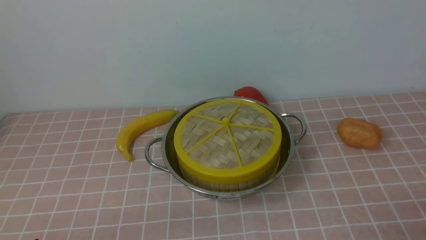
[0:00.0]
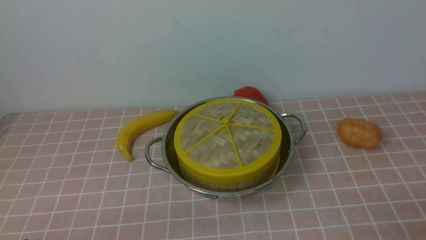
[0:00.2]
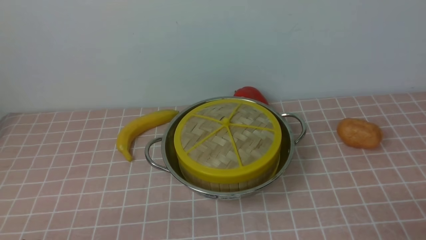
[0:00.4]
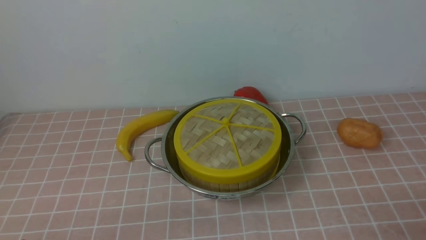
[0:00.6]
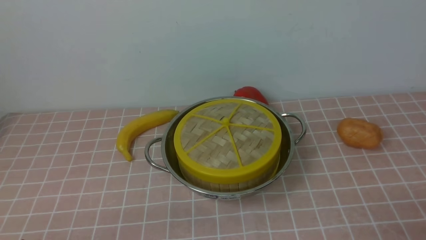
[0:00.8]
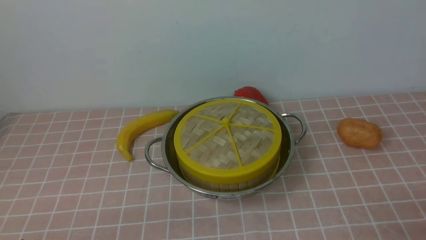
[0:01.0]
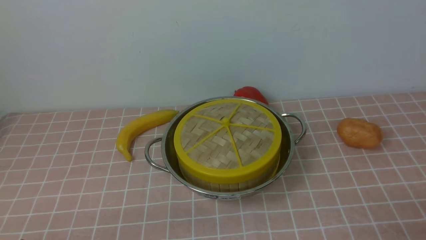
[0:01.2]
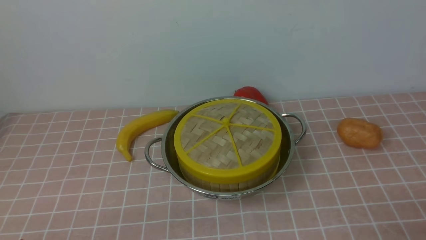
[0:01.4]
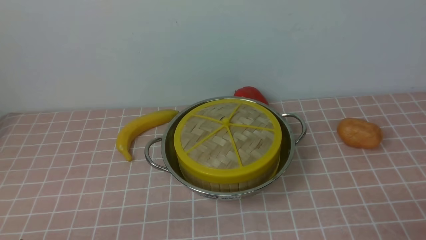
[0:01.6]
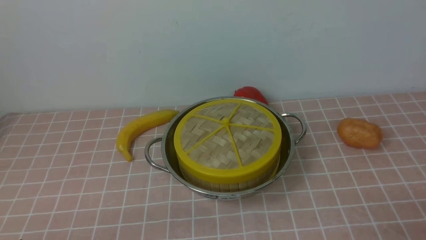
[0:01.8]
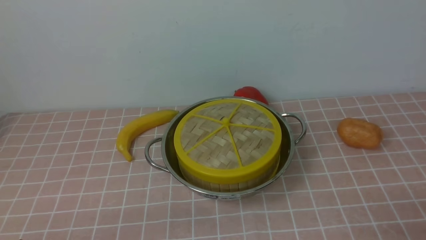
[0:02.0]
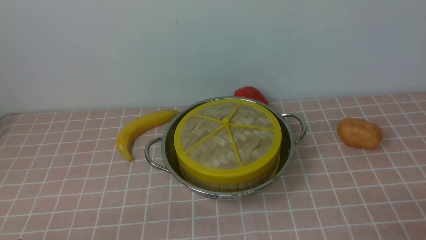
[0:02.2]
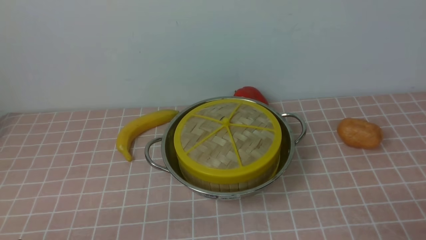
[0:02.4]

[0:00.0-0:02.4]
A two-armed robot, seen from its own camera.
Task of the whole recording: place the steamer in the pot on the pink tablecloth, and put the lid on the steamer.
0:01.2 to 0:02.4: The two grippers keep their place.
